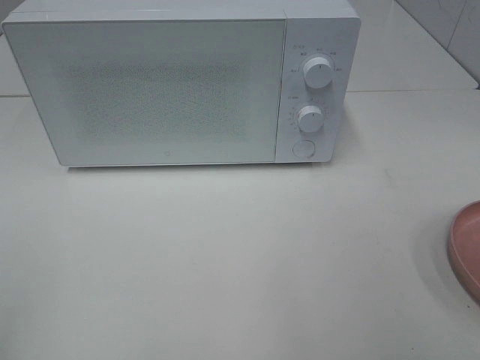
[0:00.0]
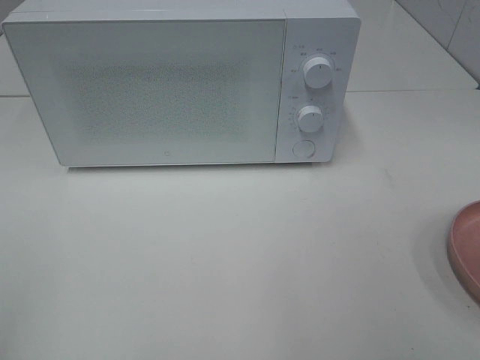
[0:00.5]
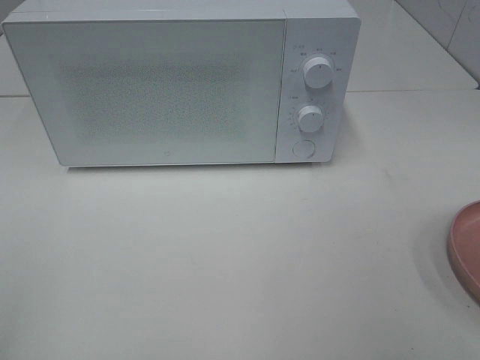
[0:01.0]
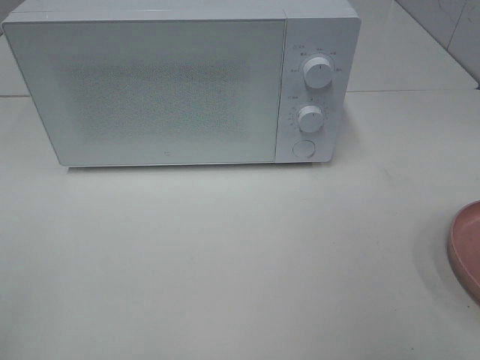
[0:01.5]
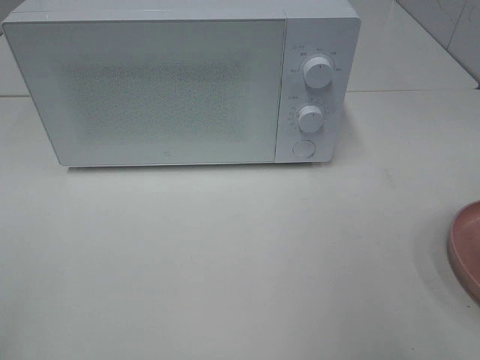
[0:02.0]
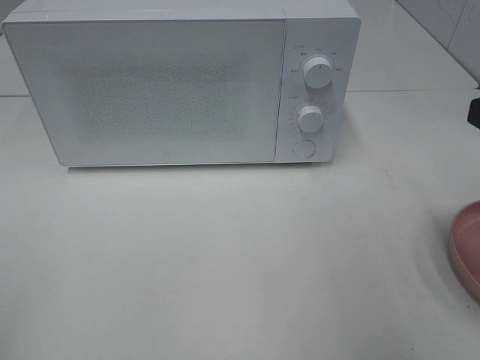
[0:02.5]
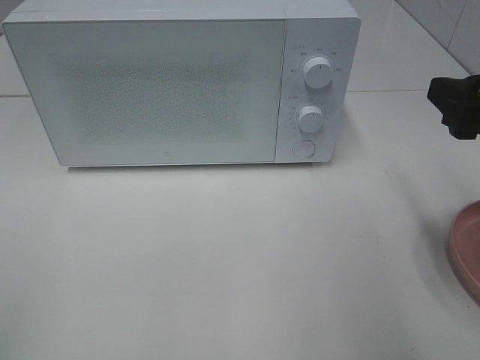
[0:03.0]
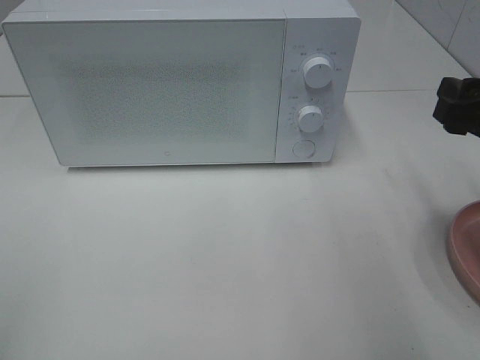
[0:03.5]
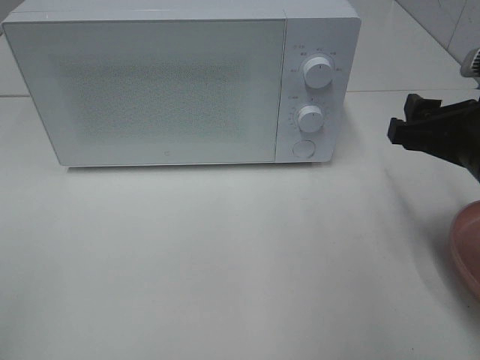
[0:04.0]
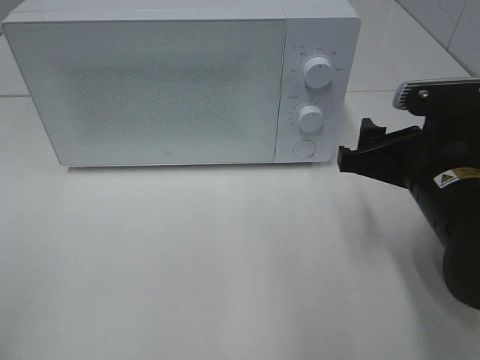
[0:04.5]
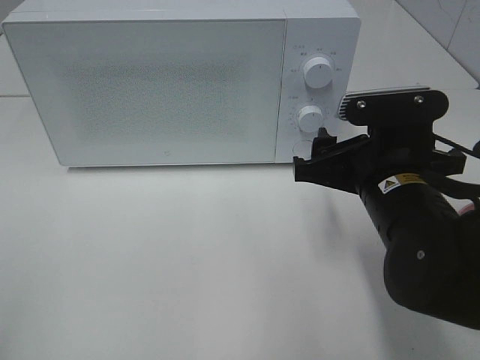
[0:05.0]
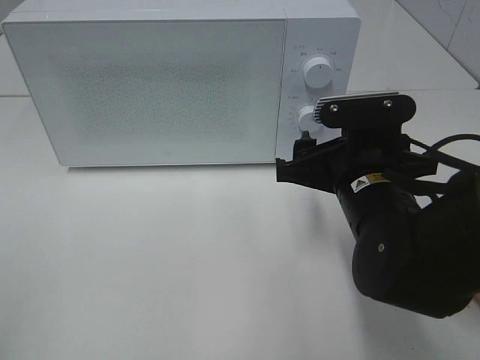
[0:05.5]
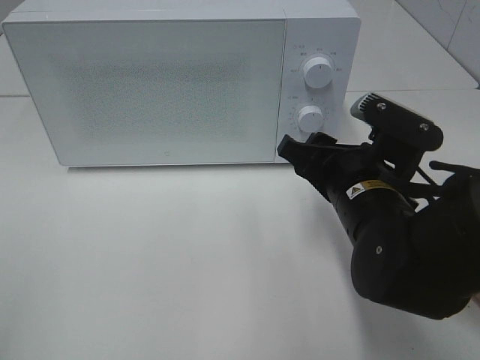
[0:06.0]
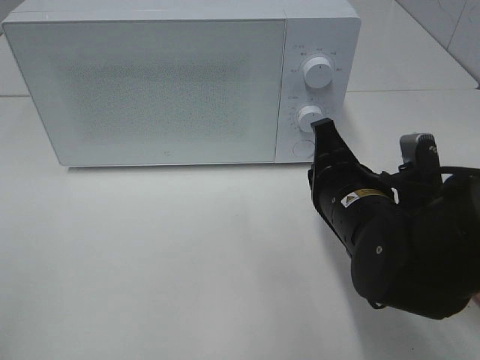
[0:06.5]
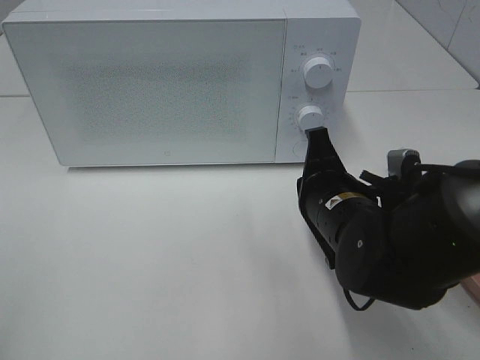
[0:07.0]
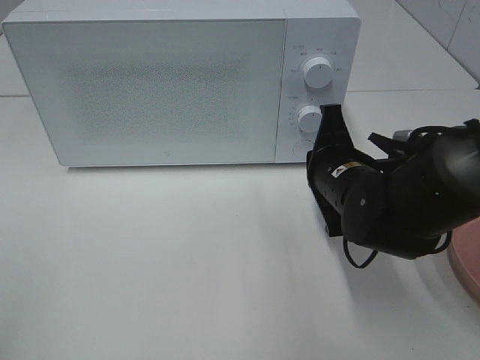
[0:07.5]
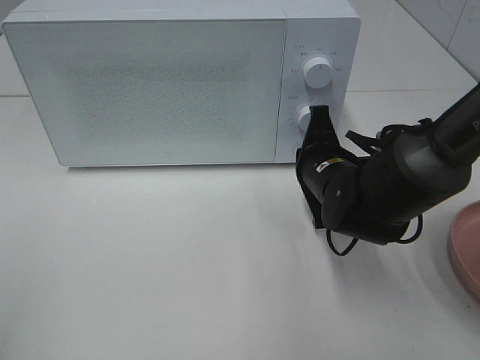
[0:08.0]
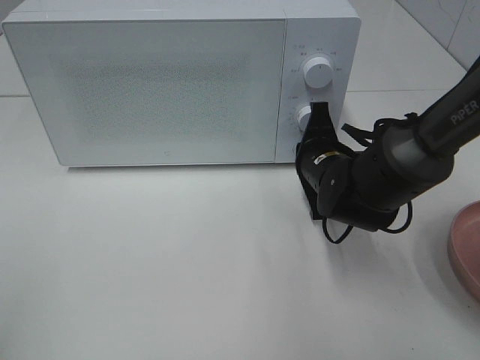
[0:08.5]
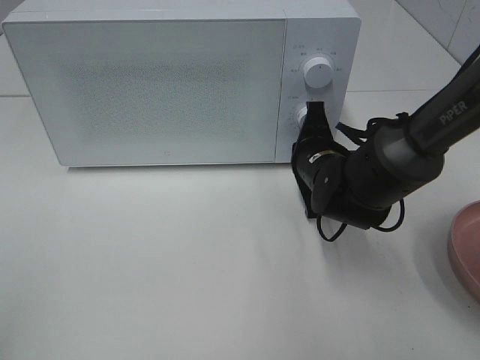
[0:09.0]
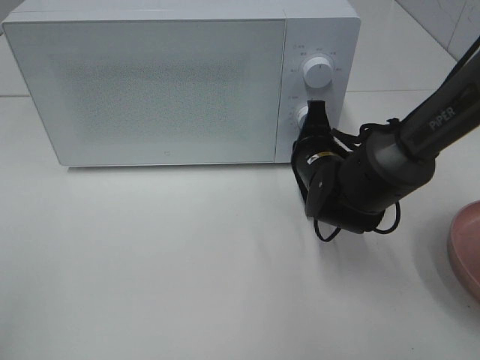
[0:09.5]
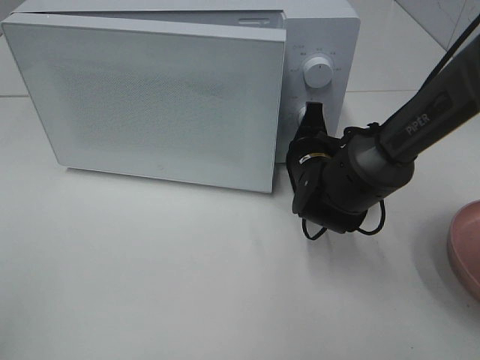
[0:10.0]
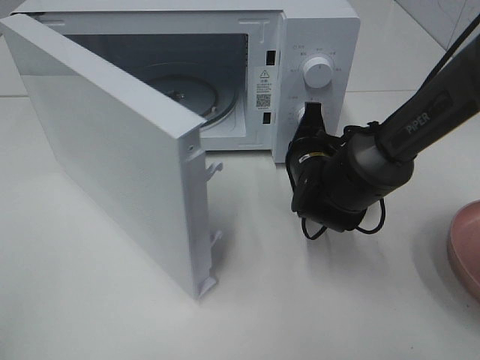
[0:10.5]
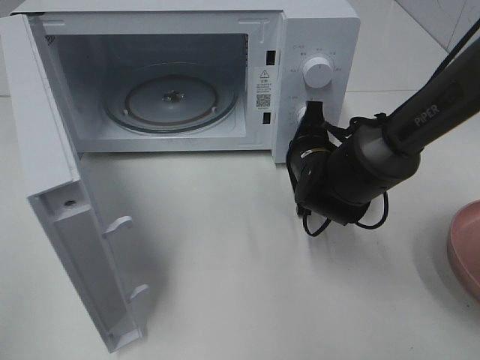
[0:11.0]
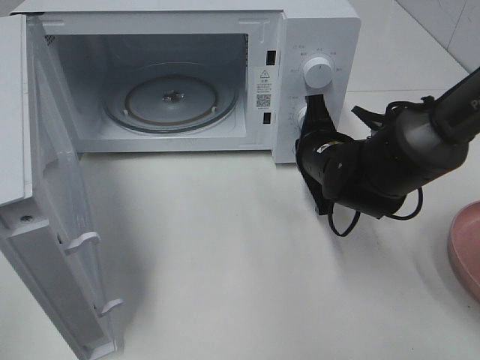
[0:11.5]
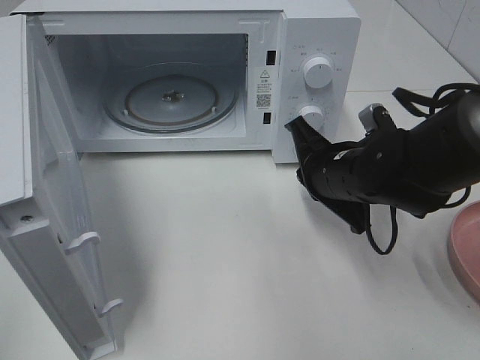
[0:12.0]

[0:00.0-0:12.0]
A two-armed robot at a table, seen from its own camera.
Task of the whole recording: Heat the burger.
Step, 0:00.0 to 0:11.5: Right hand: press the switch.
0:02.0 to 0:04.0: The right gripper moves downward, forward and to the left, about 15 cm.
0:04.0 to 0:06.0: The right gripper moves to the left and downward, about 10 cm.
0:06.0 to 0:08.0: The right gripper shifts some 10 cm forward, and closes up.
0:08.0 to 0:10.0: The grippers stay close to where they were, moving slightly.
0:10.0 to 0:12.0: The right gripper heads backward, covering approximately 5 cm.

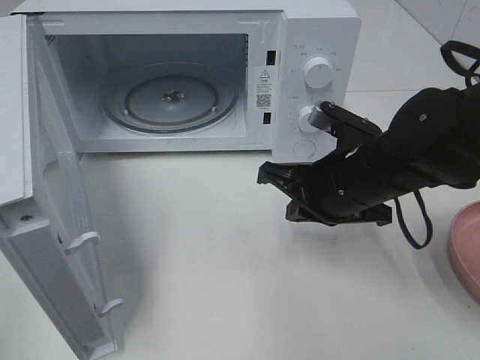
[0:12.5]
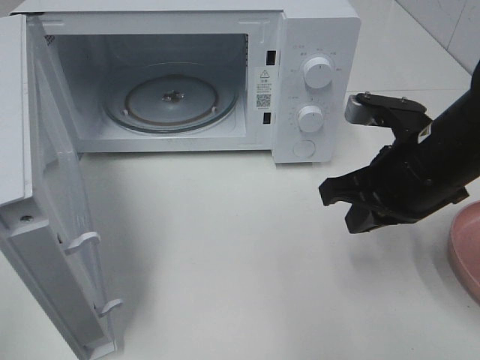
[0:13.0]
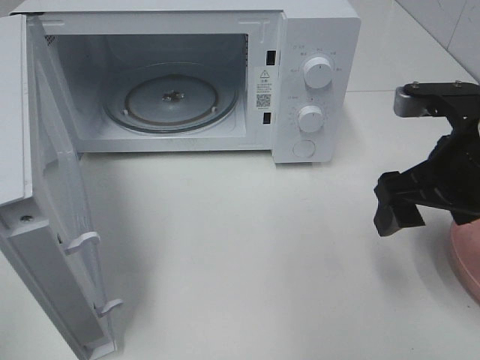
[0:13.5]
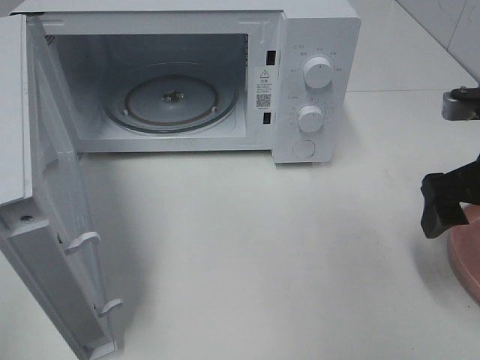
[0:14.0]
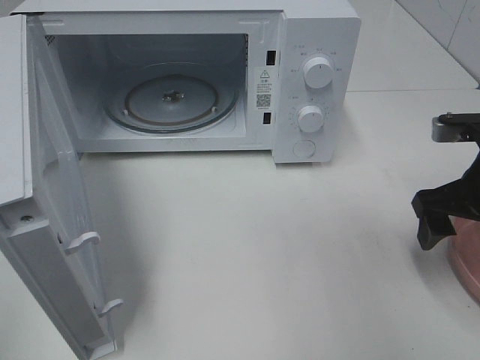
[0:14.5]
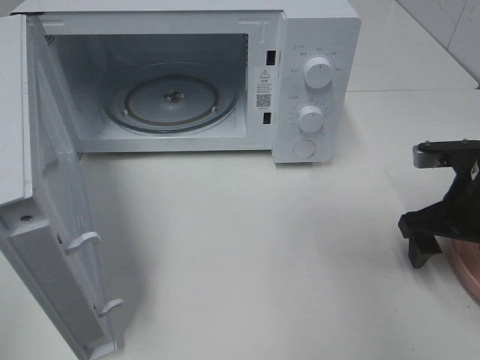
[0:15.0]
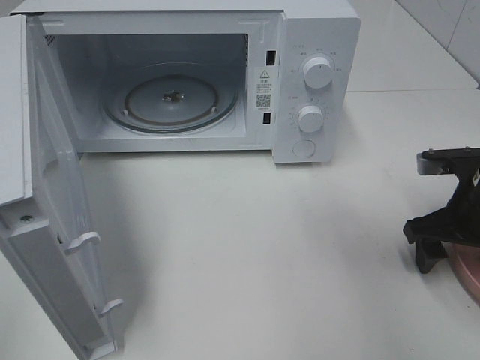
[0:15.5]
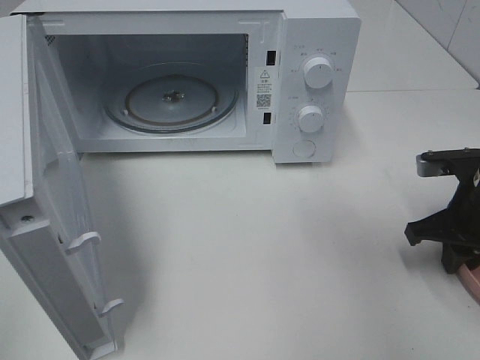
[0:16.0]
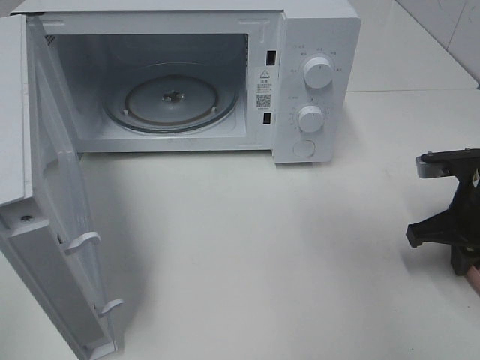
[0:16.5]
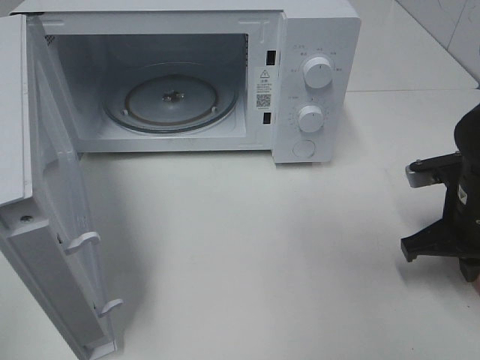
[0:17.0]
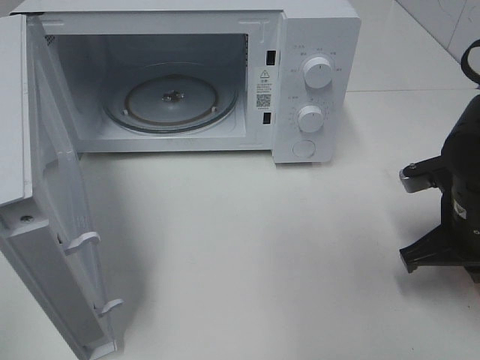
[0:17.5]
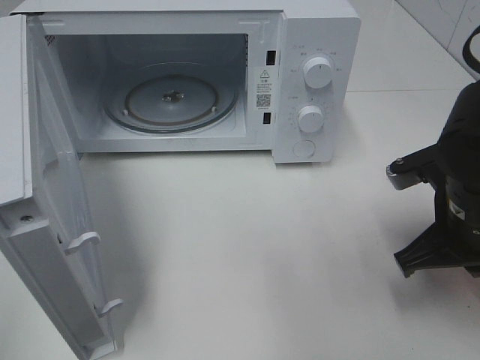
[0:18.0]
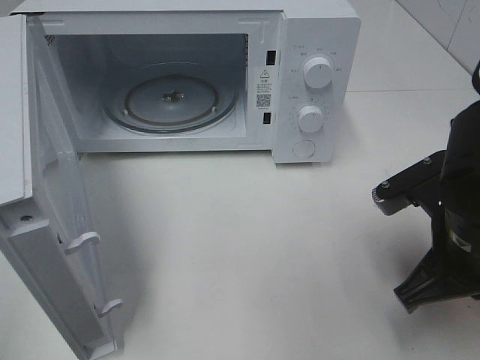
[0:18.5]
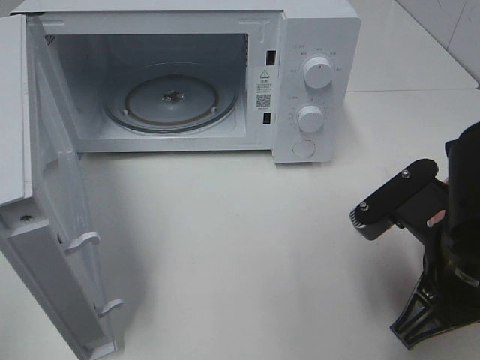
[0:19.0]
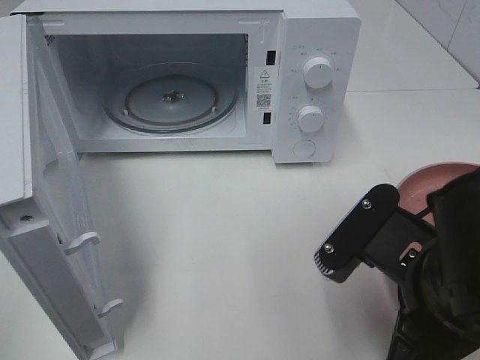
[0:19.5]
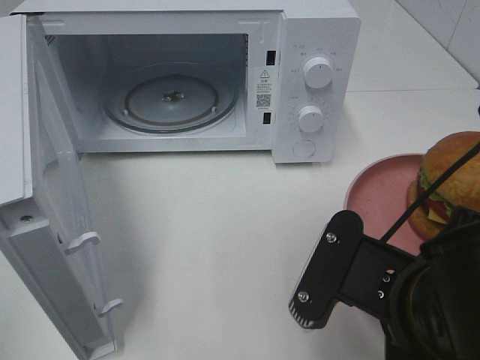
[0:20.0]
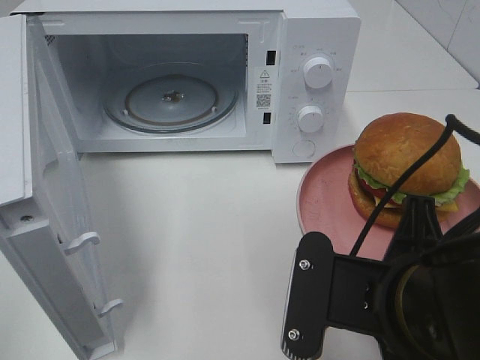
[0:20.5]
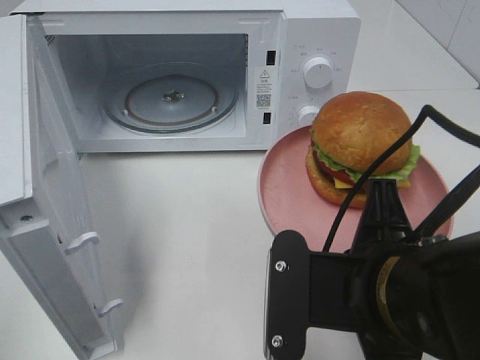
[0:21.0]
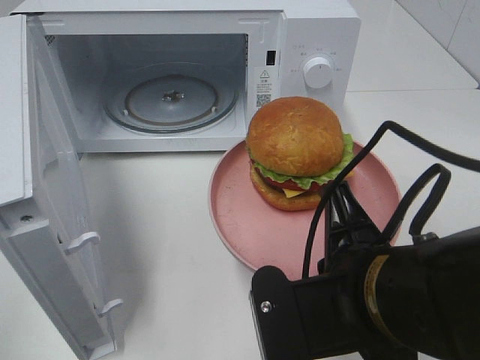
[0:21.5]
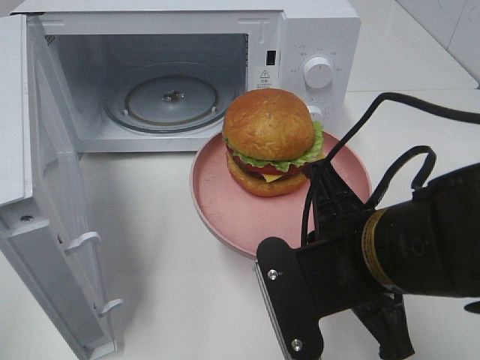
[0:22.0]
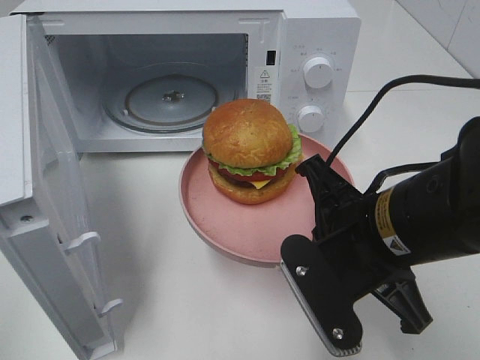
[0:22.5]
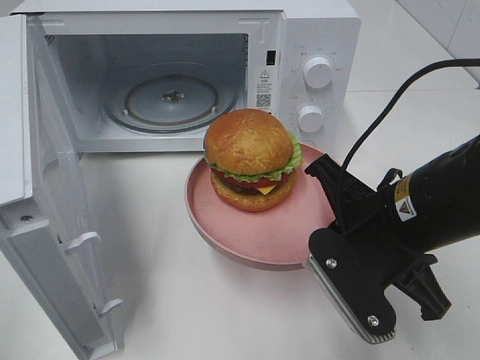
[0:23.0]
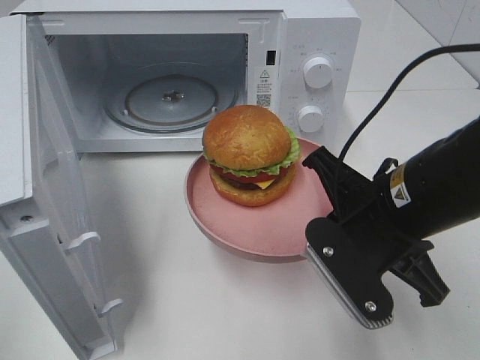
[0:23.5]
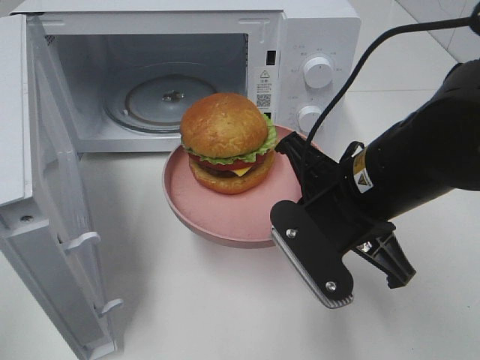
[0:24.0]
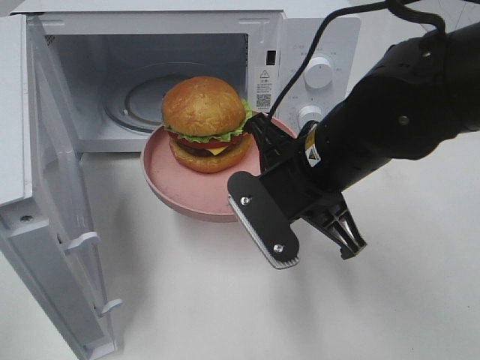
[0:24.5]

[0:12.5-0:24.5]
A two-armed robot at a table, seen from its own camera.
Task of the whole recording: Heat the burger.
Step, 0:12.5 to 0:16.5: Right hand: grab the plate with the hamburger.
0:12.5 to 0:14.5: The right gripper moves to the right, some 15 cm, and opens up.
0:14.5 to 0:16.5: The right gripper shifts about 5 cm downward, and closes.
0:16.5 to 0:18.5: The right gripper heads to the left and backward, covering some 10 cm.
0:18.5 to 0:20.5: The right gripper is displaced backward and to the left by about 10 cm.
0:20.5 to 0:22.5: The right gripper heads forward, covering approximately 5 cm.
0:22.5 to 0:24.5: The right gripper moves forward, approximately 5 cm.

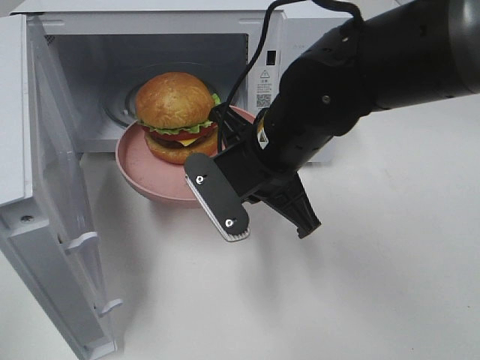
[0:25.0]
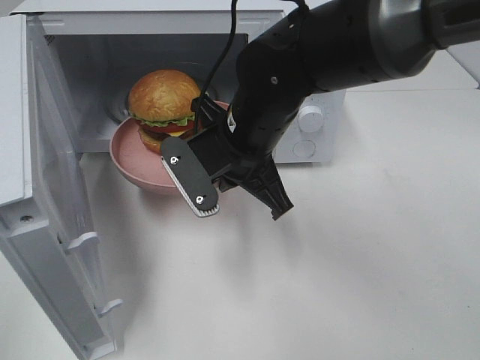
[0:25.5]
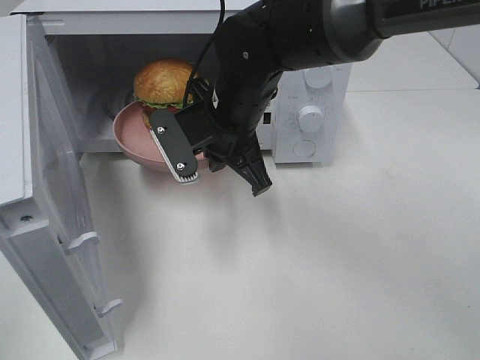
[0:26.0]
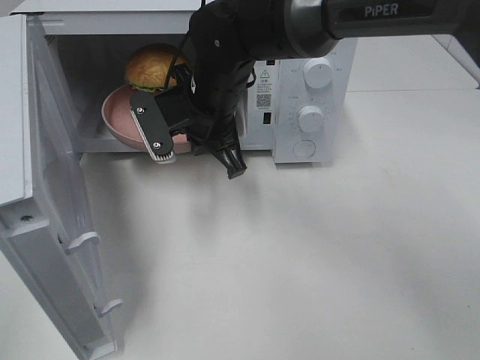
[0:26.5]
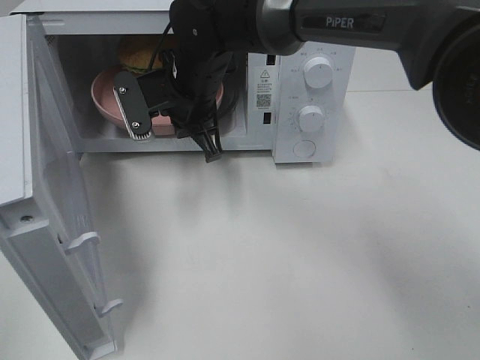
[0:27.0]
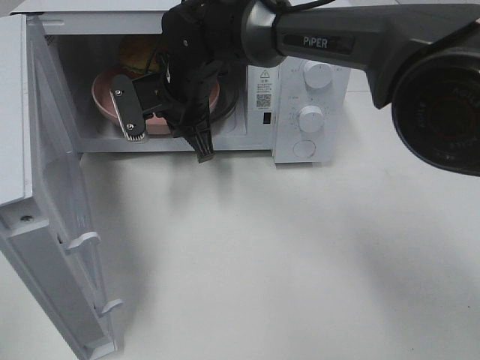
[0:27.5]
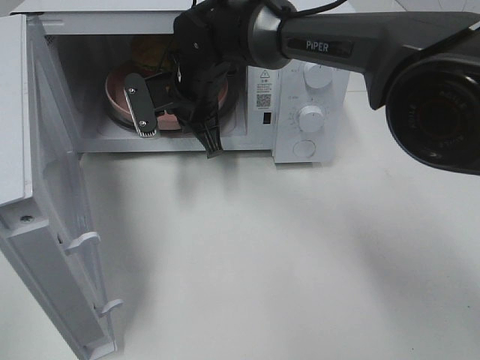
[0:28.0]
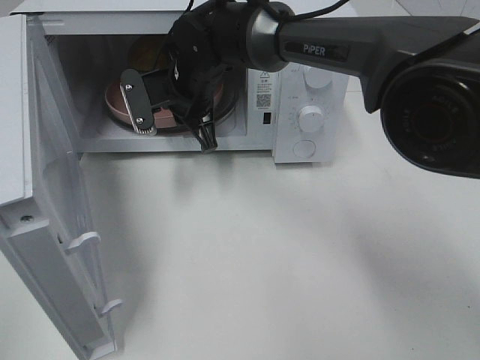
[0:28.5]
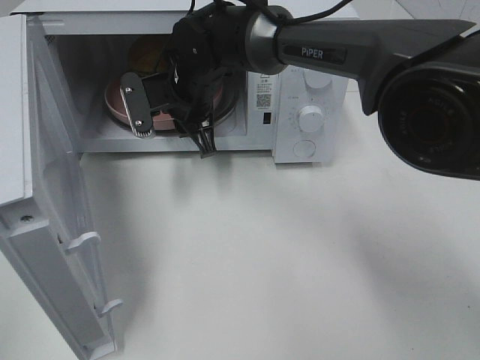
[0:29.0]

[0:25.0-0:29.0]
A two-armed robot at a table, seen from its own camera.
Task of the whole recording: Heat the burger.
Step, 0:25.0 to 0:28.5: Right hand: place the plate in the microwave.
0:25.0 to 0:27.0: The right gripper is displaced forward and to the left by approximately 15 cm.
0:27.0 to 0:29.0: The right gripper opens up.
